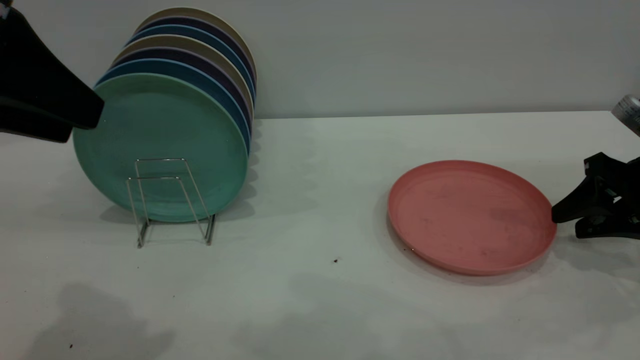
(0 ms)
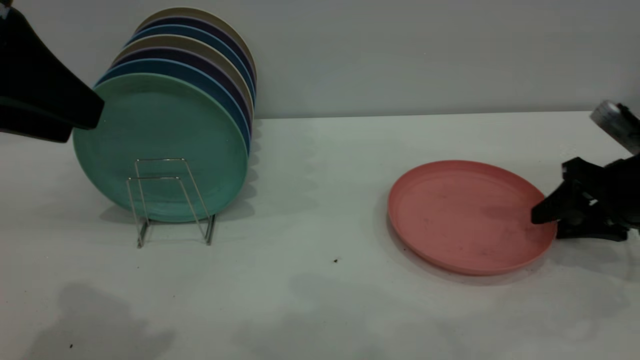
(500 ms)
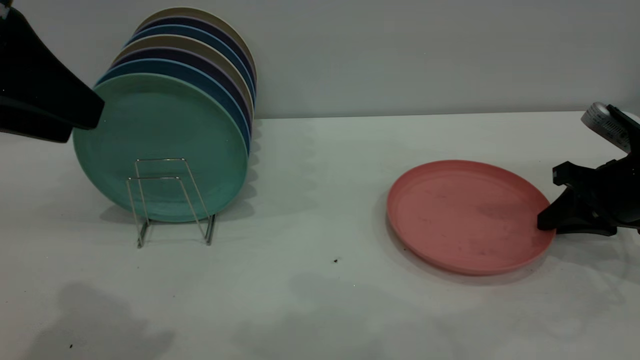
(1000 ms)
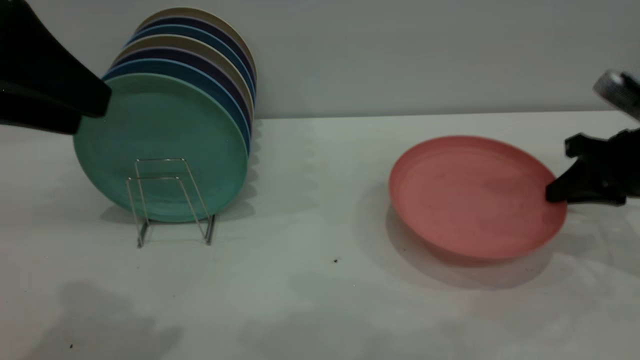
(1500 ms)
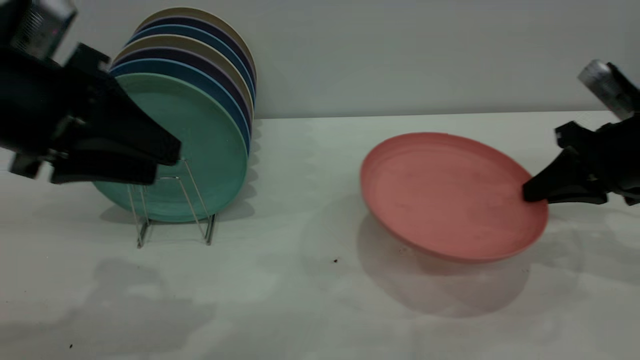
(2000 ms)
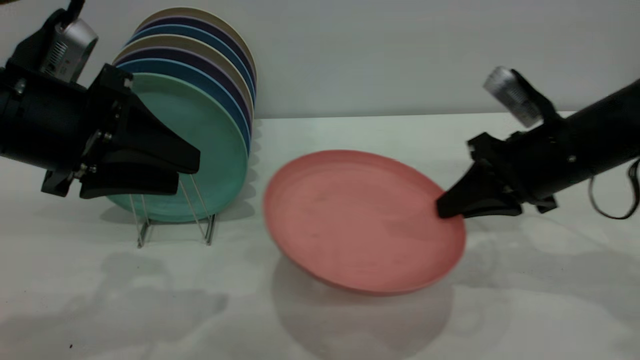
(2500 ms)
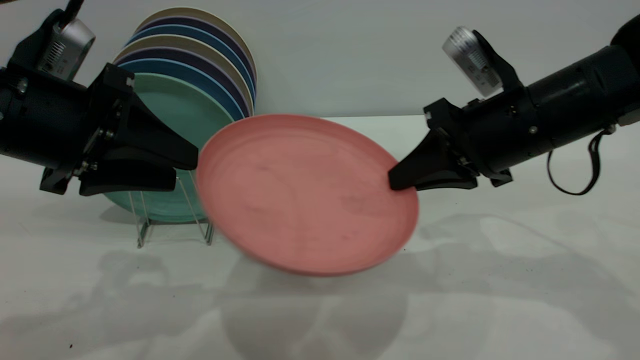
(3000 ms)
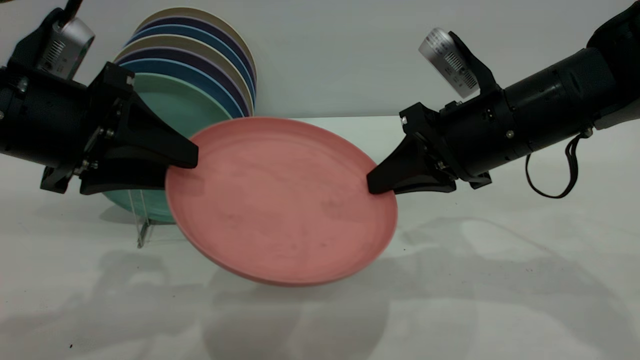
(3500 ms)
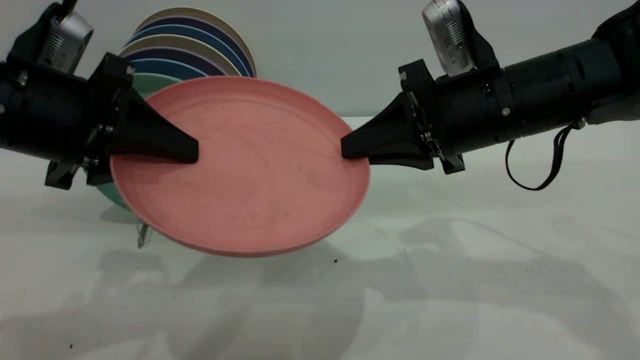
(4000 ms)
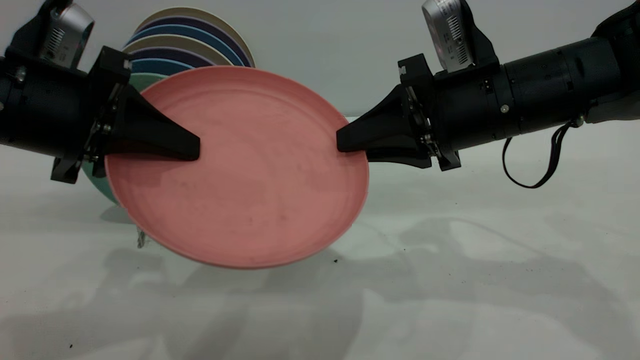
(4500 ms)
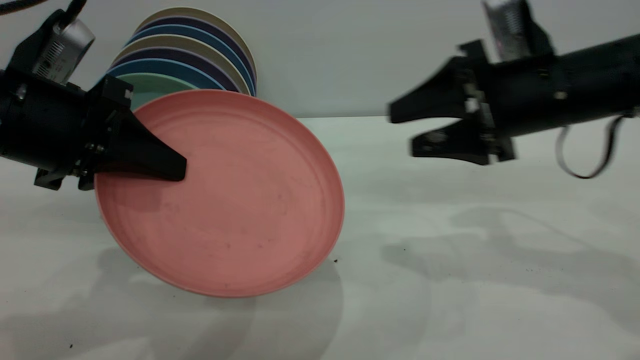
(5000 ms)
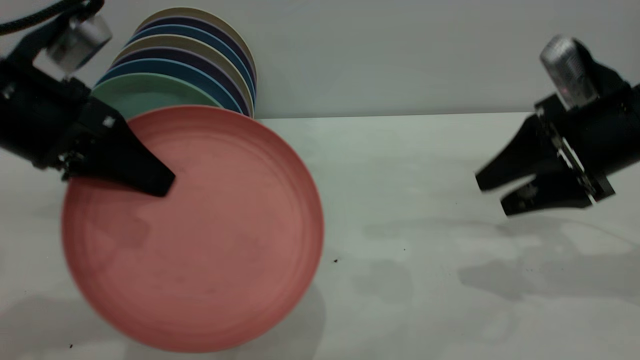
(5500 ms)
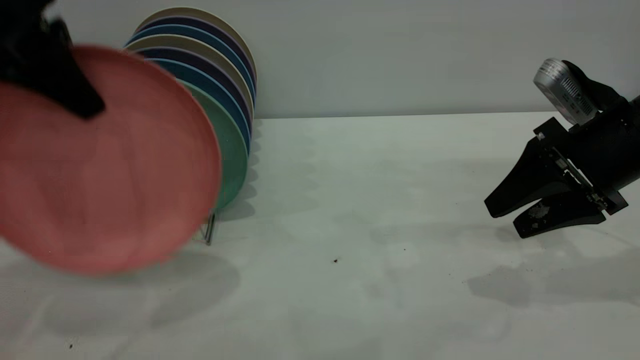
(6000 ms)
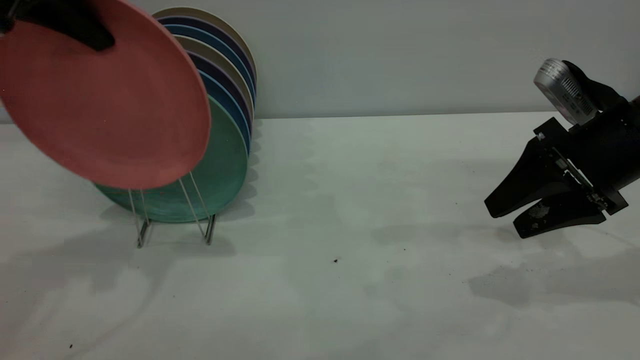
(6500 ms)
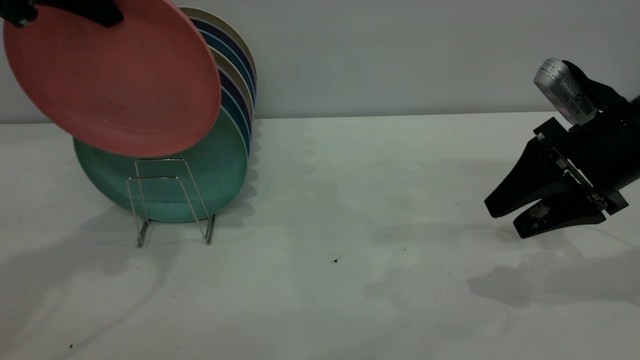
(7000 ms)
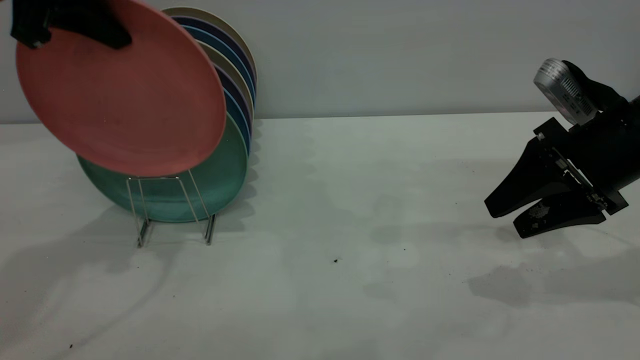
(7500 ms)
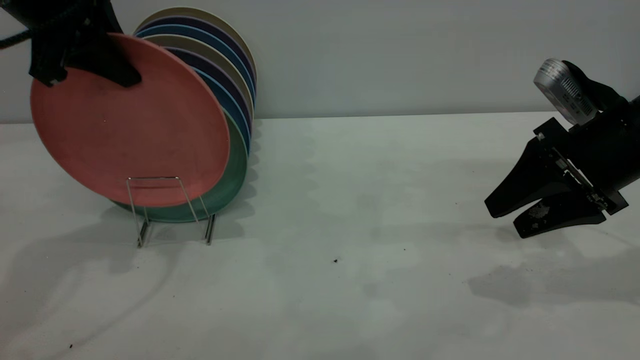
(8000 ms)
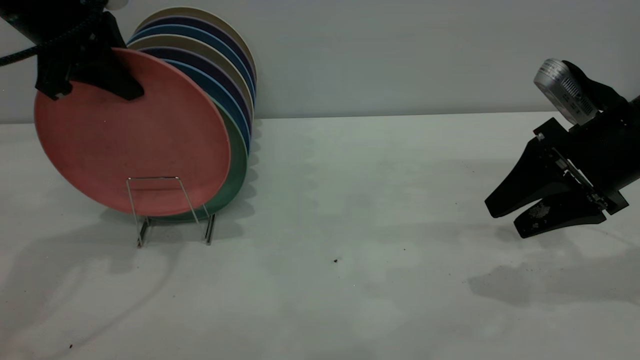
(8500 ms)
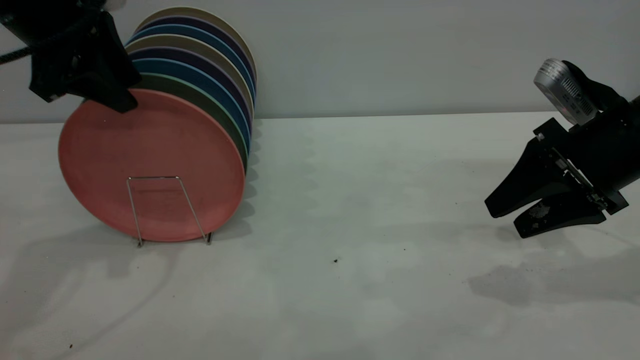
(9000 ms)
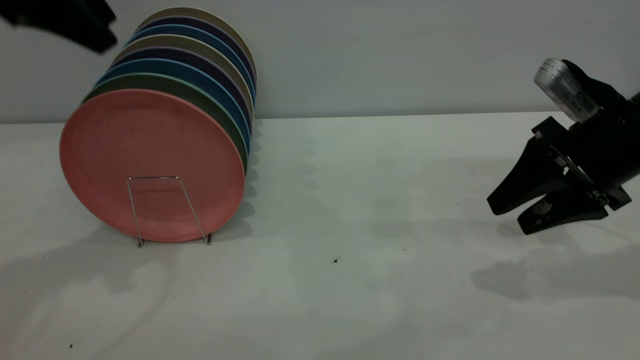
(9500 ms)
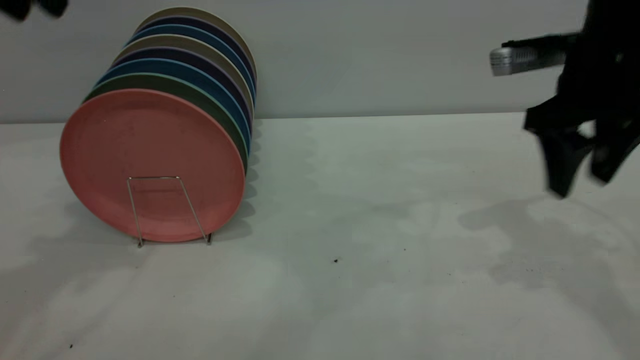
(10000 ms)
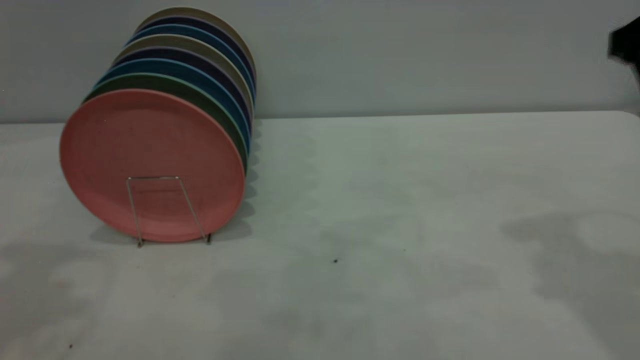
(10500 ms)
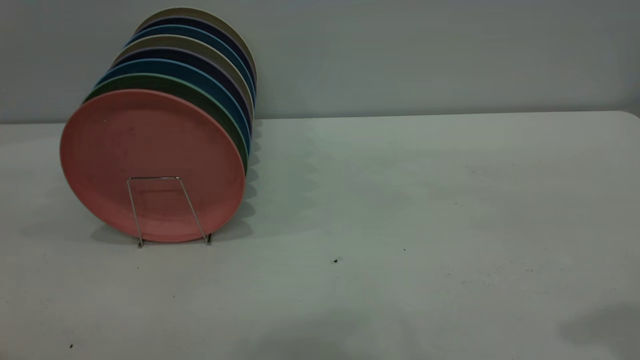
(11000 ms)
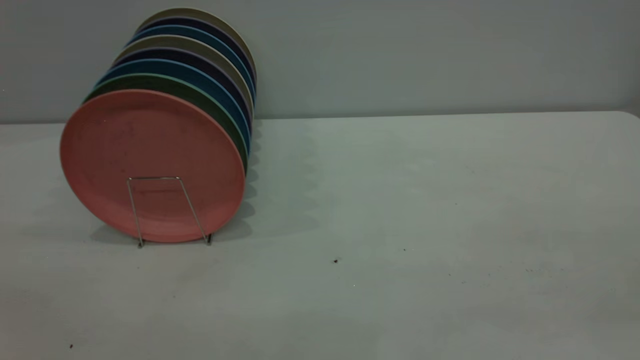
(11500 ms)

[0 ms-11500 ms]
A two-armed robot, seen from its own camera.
Task of the whole recording: the right gripper grasp the pink plate, the right gripper pass the pink plate to the left gripper, and the left gripper place the pink plate on the plate rack.
Step, 2000 ms to 4500 ms: Pass the plate from the right gripper to the left gripper.
Step, 5000 ms to 9500 ms: Place the plate on the shelf.
0 ms to 2000 ms: The left gripper moves downward, about 10 cm; the right gripper changes place by about 5 cm, and closes its fingers.
2000 ms to 4000 ms: The left gripper closes up, while the right gripper heads to the left, covering some 15 cm.
4000 ms to 6000 ms: The right gripper shifts roughly 10 cm to the right, and opens. The left gripper heads upward and forward, covering approximately 10 cm, and closes its fingers.
7500 ms to 9500 ms: The left gripper opens.
9500 ms to 11500 ms: The left gripper heads backward, covering some 30 cm. The right gripper goes roughly 30 cm backward and upward.

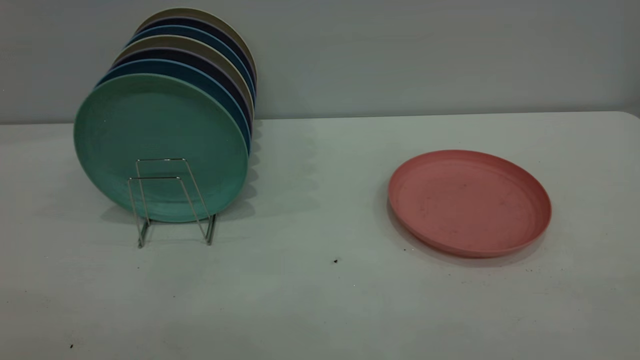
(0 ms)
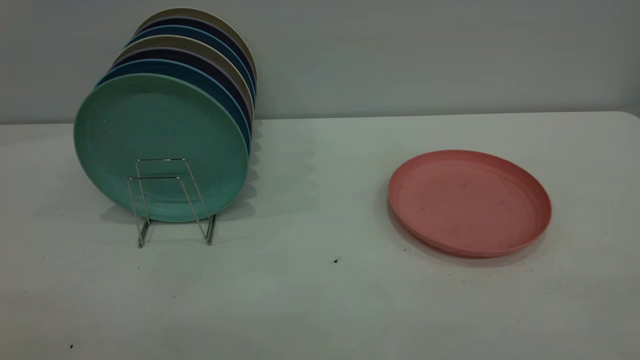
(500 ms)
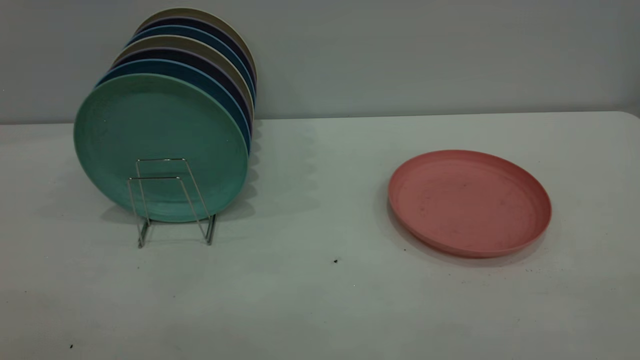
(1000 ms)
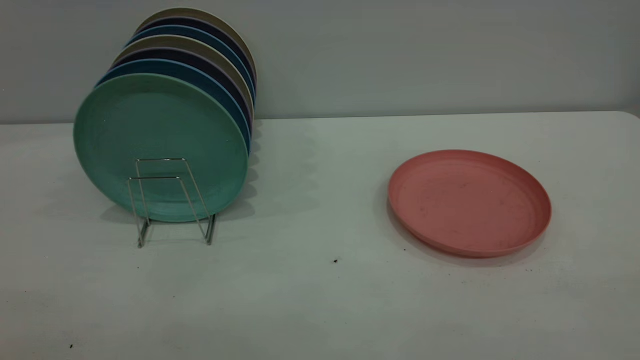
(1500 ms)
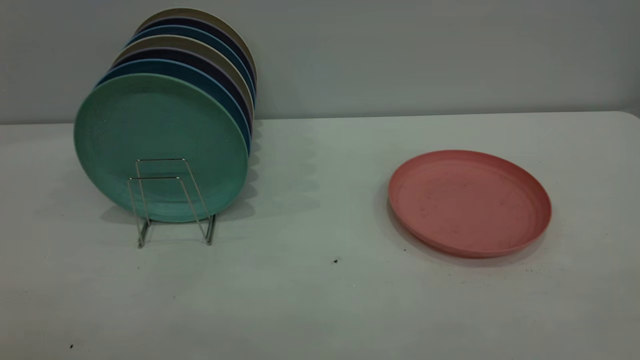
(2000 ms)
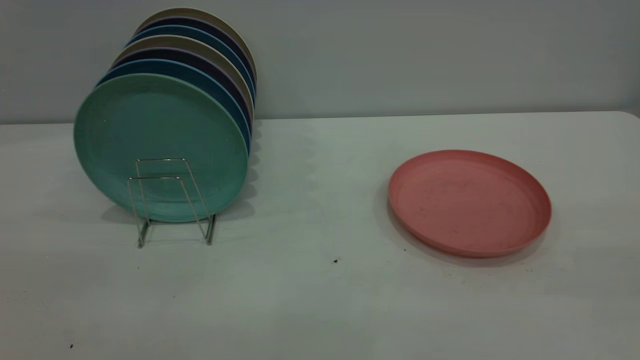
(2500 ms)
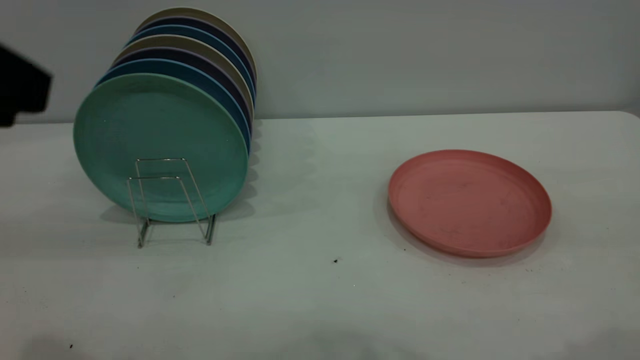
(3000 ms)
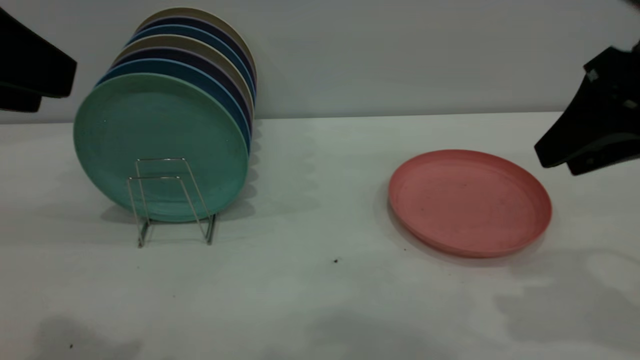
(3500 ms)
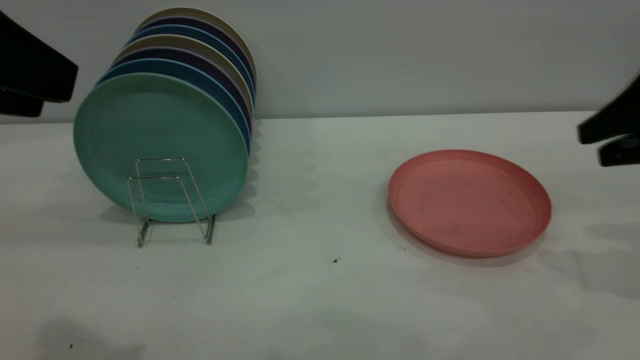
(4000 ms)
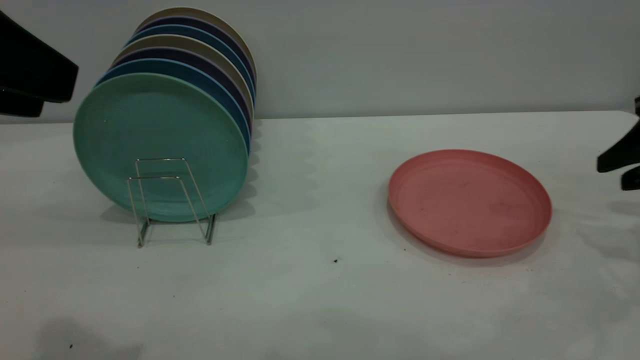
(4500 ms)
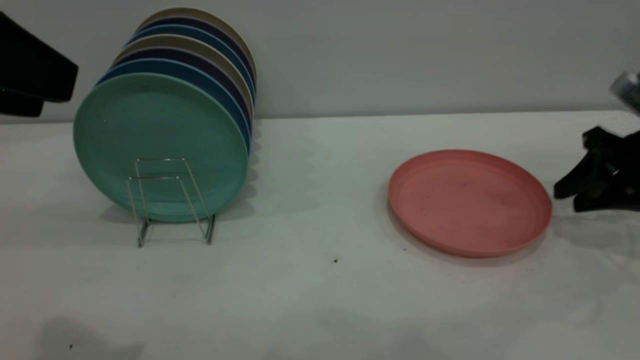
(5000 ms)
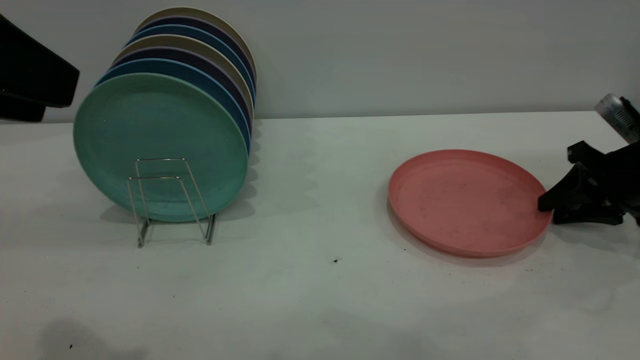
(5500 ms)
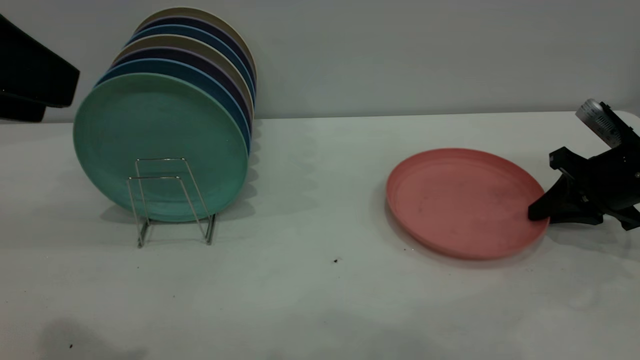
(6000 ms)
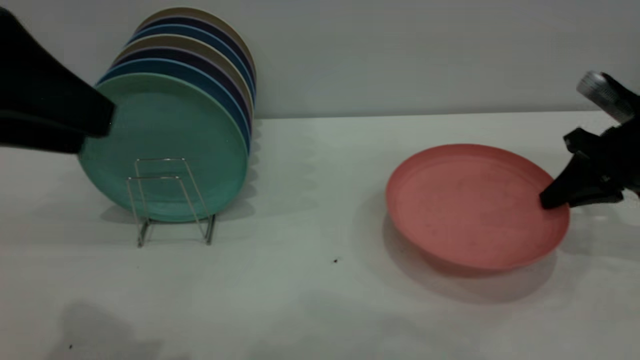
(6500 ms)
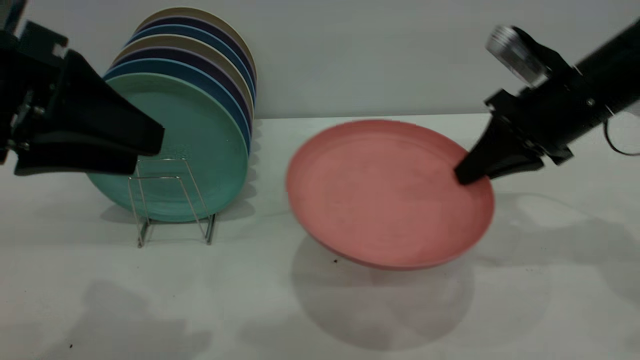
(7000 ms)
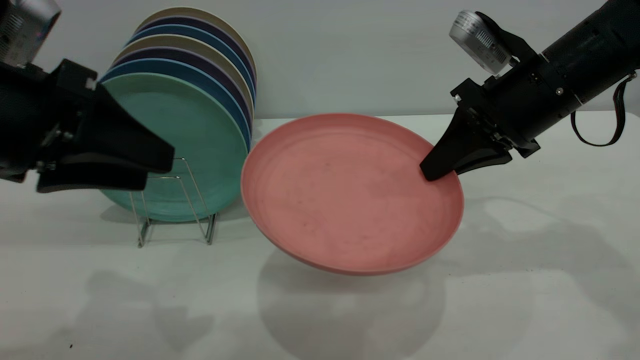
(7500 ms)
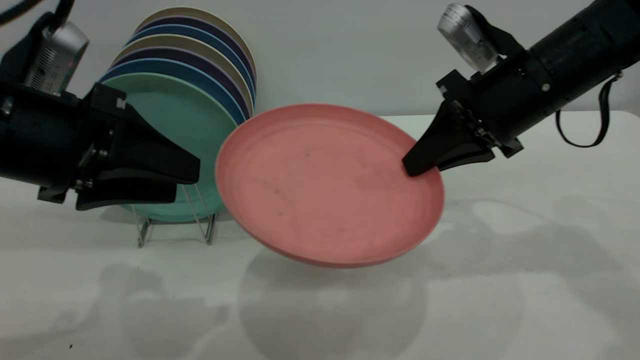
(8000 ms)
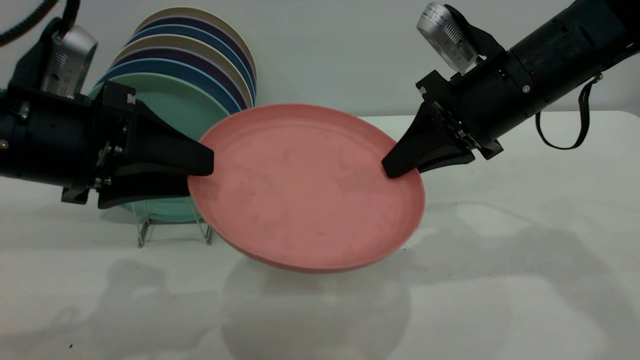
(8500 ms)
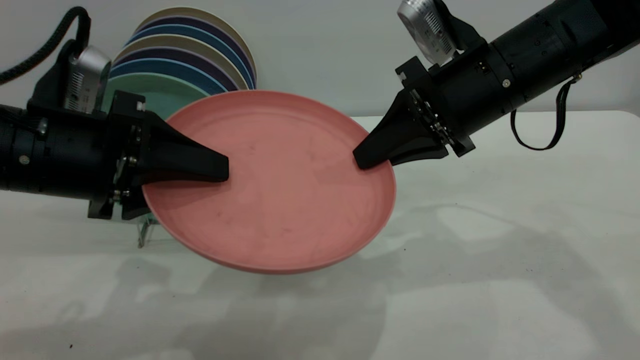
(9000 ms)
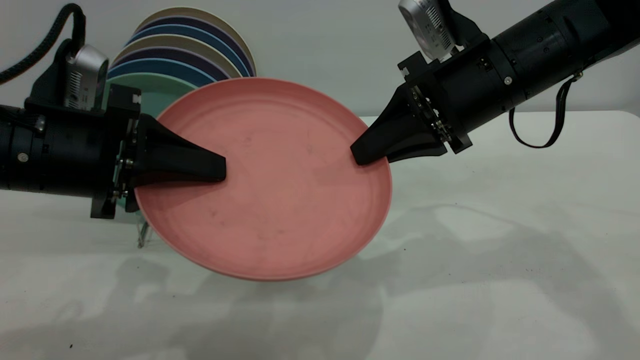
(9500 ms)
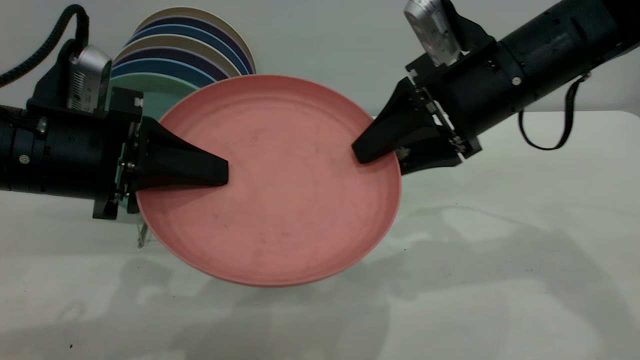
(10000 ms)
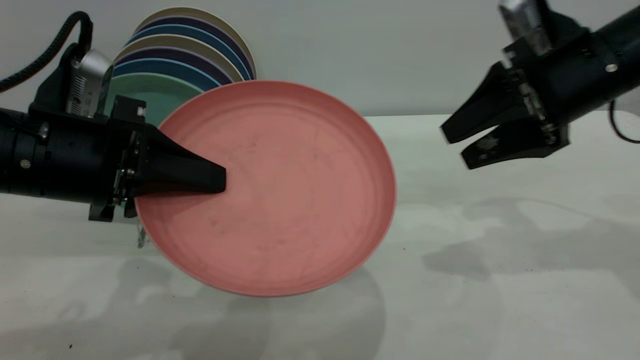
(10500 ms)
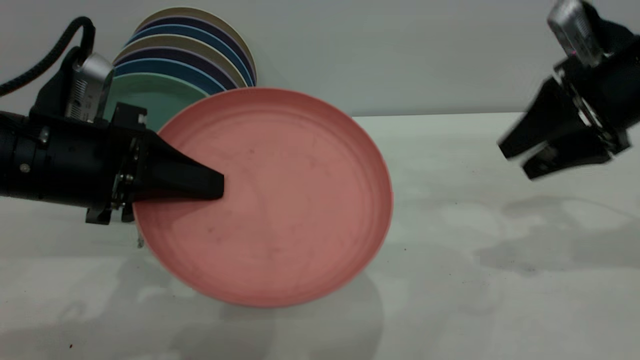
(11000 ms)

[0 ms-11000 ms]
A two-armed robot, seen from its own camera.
Task of the whole recording: the right gripper grasp the pink plate, the right gripper pass the pink plate to the left gripper, and the left gripper place the pink plate on the plate rack.
Step, 0 ms to 6500 ms: Pick up the plate with the right gripper.
2000 ms to 3500 ms: Both grippers move forward, roughly 25 cm.
3500 ms to 5500 ms: The right gripper shifts approximately 20 cm downward, forward and to the right.
5500 ms to 7500 ms: The left gripper goes roughly 10 cm downward and forward. The right gripper goes about 20 cm to the left and upward, and closes.
7500 ms to 9000 ms: The left gripper shifts about 5 cm downward, while the right gripper travels to the left by about 5 cm.
9000 ms to 11000 ms: The right gripper shifts roughly 15 cm to the right, and opens up. The left gripper closes.
